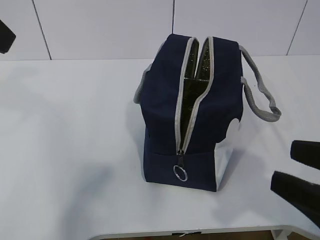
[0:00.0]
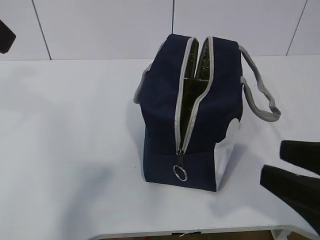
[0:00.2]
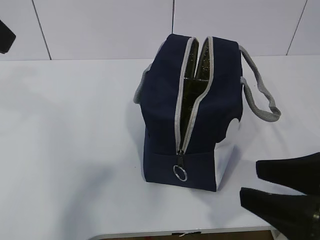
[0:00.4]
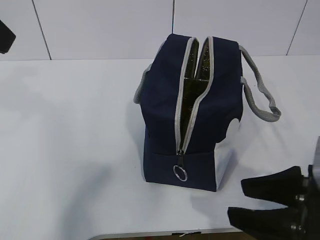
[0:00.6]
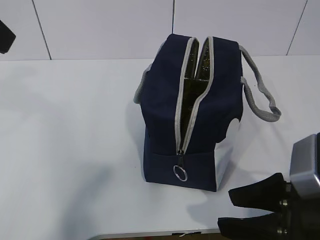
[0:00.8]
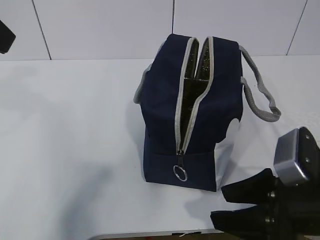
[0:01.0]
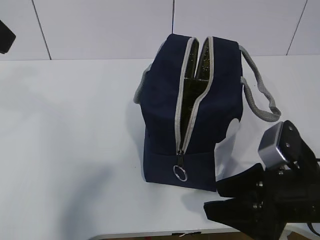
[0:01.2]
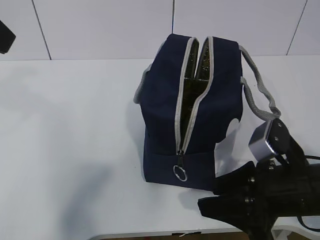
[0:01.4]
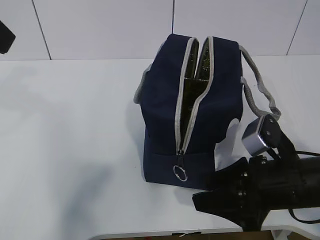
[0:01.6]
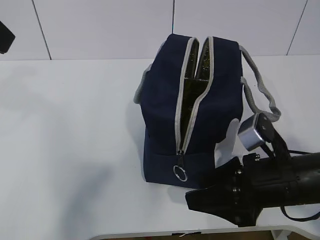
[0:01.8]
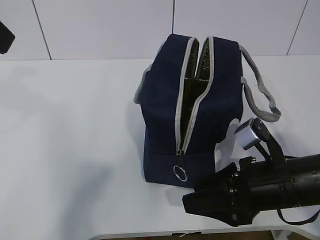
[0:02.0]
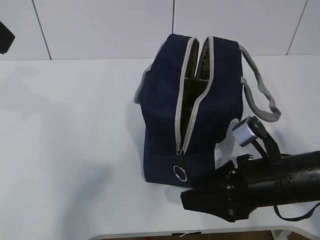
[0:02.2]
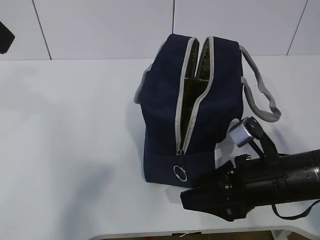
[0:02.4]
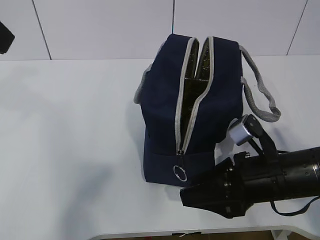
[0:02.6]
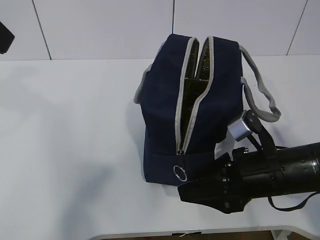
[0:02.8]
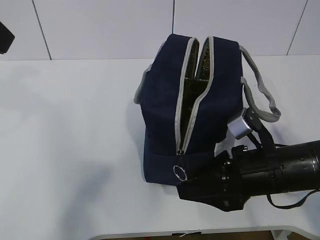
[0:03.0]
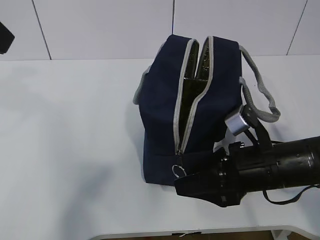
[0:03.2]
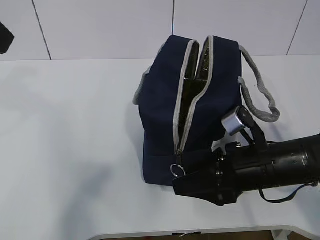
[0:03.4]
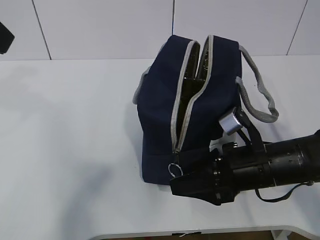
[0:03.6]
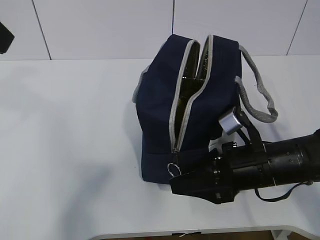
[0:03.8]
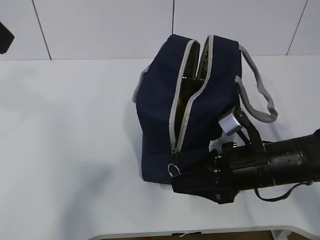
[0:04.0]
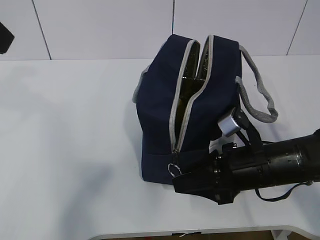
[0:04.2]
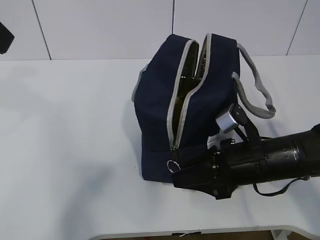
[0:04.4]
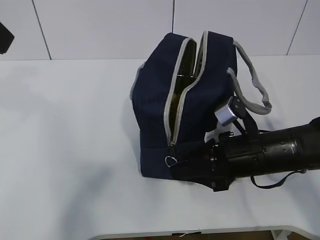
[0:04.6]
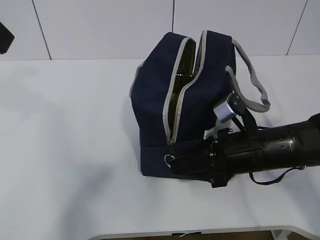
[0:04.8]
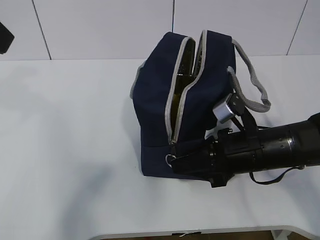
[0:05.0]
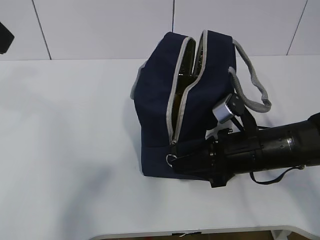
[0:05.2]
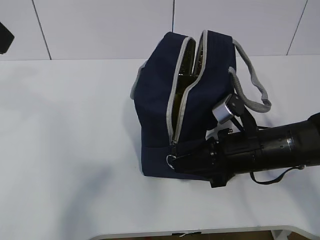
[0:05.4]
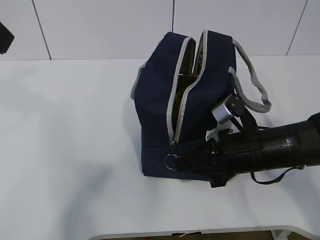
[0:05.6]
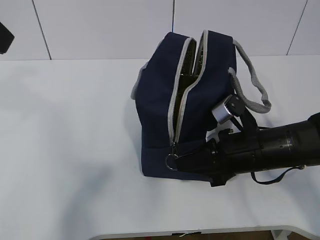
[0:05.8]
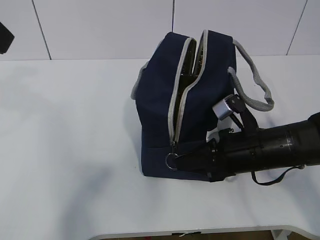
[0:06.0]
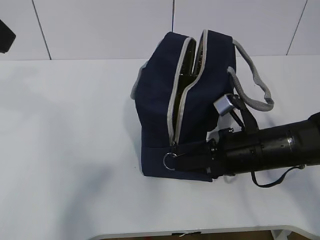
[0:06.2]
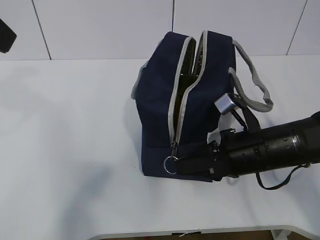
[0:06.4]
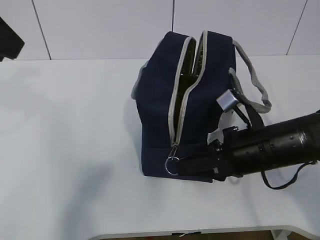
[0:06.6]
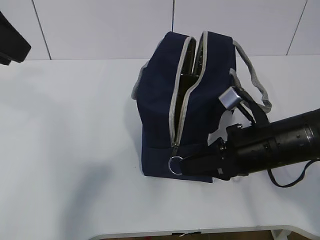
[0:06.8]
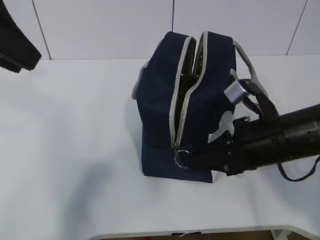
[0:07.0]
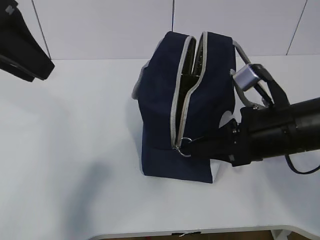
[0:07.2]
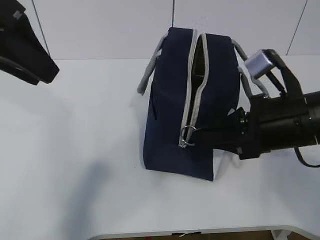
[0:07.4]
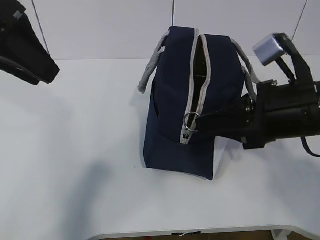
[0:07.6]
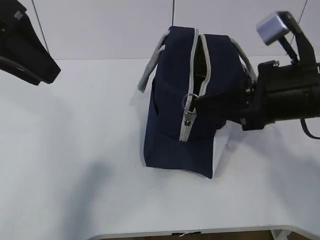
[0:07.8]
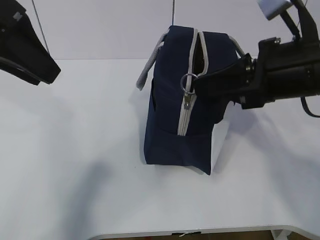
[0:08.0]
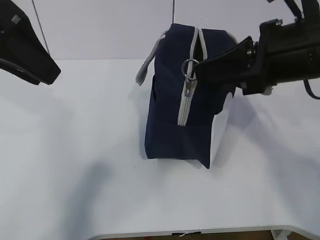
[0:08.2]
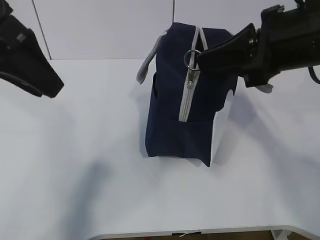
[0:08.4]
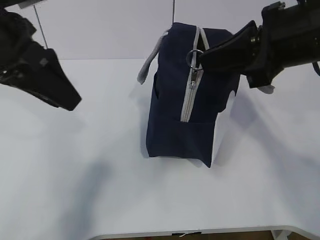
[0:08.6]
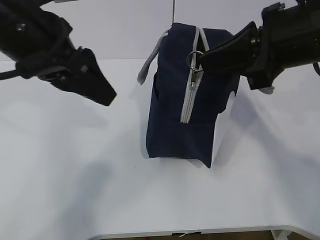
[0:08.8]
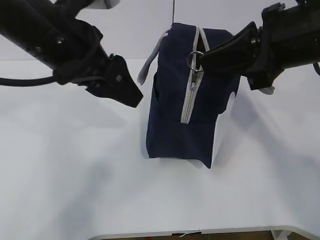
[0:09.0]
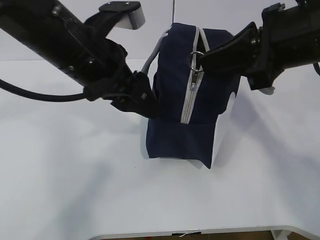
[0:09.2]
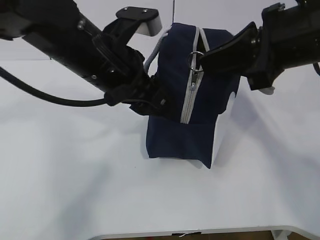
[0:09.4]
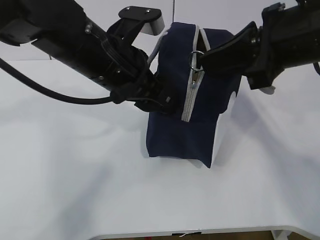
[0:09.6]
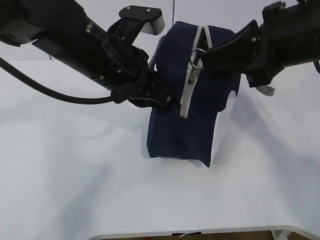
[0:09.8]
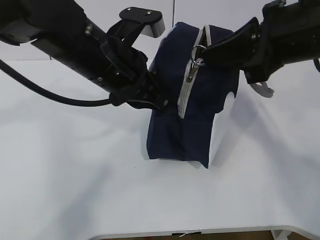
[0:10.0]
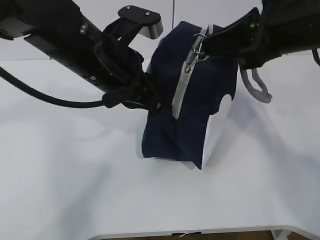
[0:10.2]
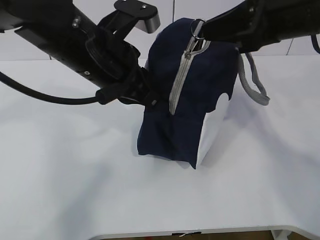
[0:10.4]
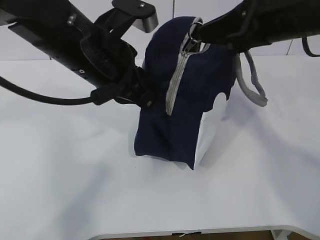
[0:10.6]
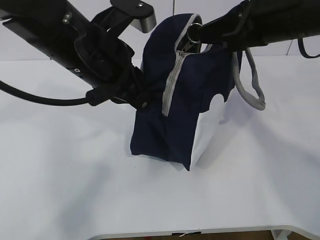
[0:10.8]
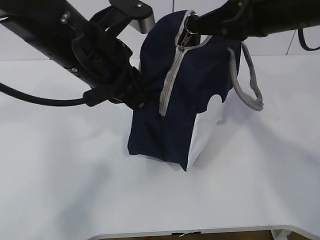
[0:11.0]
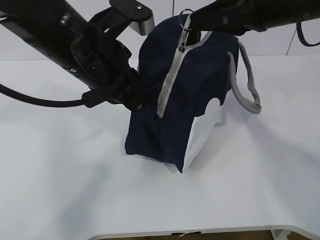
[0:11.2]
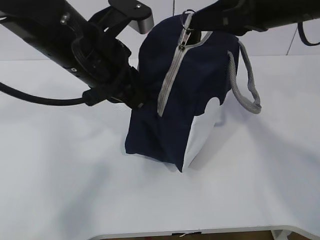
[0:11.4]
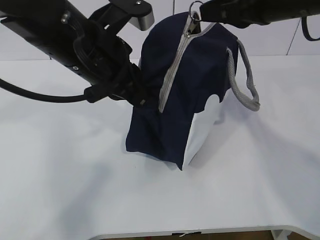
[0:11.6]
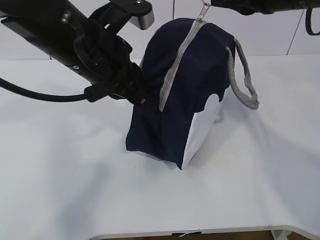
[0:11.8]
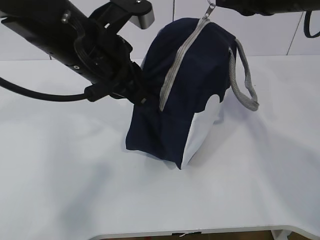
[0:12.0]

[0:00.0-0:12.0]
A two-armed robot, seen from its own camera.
0:00.0 to 0:01.6: The right gripper moves forward and downward, about 15 cm.
0:01.6 to 0:04.4: The grippers move only a little.
0:04.4 to 0:06.0: The right gripper closes up.
0:06.0 to 0:07.6: The right gripper is displaced upward by some 10 cm; the left gripper changes place by about 5 cm.
0:07.6 to 0:09.0: The right gripper heads upward, covering roughly 10 cm. Meanwhile the left gripper is displaced to the right and downward by some 10 cm.
0:09.0 to 0:10.4: The left gripper moves about 5 cm, and closes up.
0:10.4 to 0:12.0: The right gripper is displaced forward by some 5 cm.

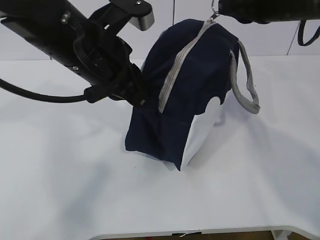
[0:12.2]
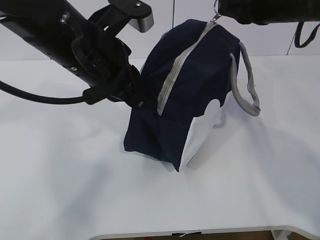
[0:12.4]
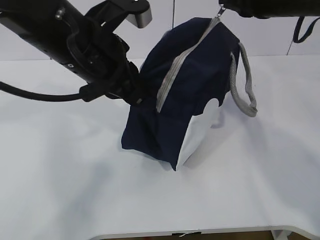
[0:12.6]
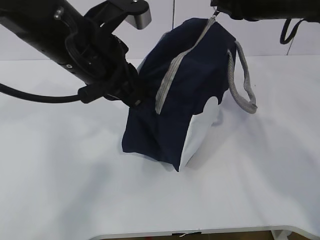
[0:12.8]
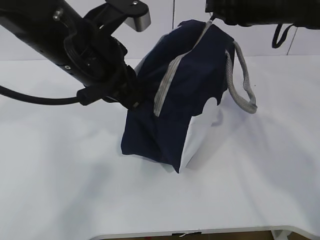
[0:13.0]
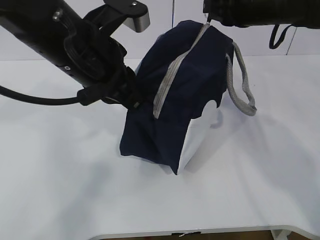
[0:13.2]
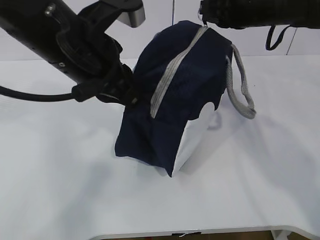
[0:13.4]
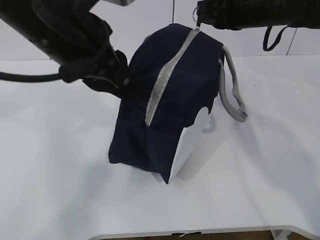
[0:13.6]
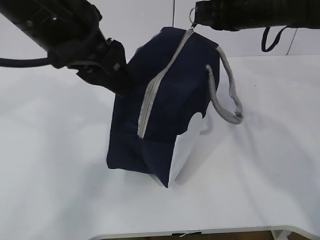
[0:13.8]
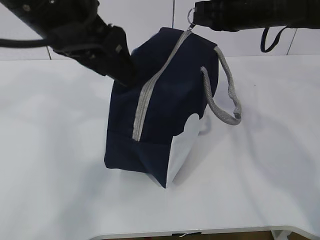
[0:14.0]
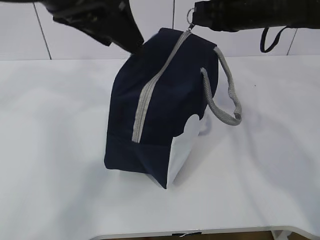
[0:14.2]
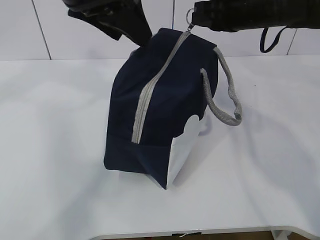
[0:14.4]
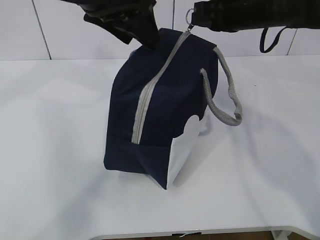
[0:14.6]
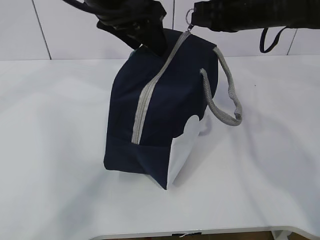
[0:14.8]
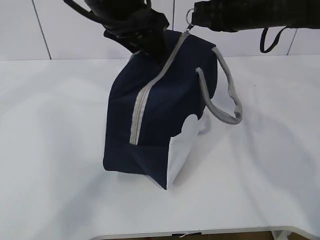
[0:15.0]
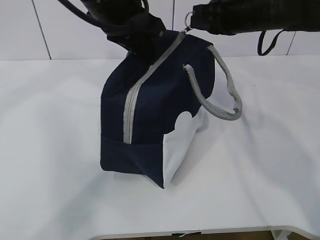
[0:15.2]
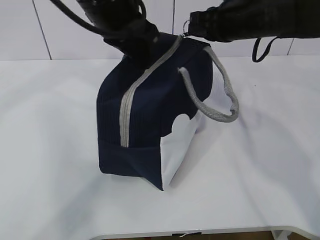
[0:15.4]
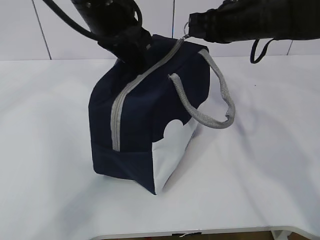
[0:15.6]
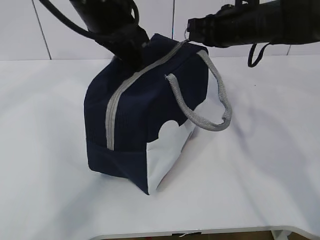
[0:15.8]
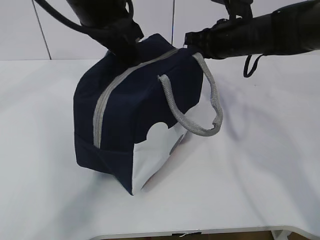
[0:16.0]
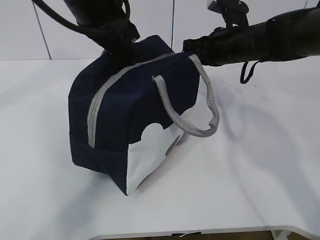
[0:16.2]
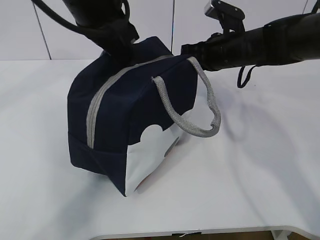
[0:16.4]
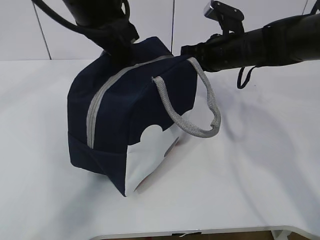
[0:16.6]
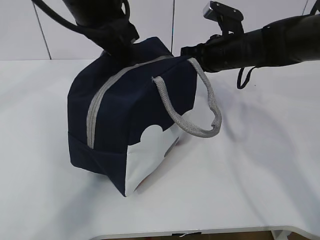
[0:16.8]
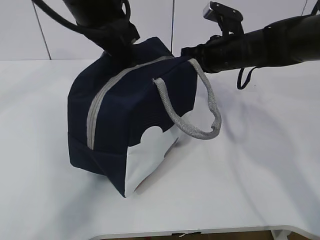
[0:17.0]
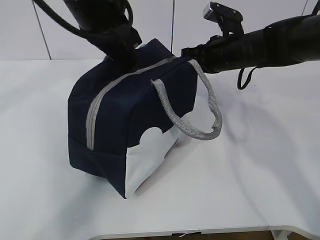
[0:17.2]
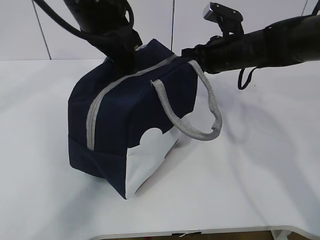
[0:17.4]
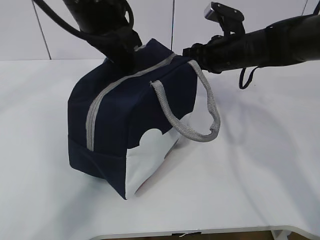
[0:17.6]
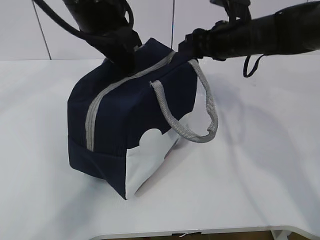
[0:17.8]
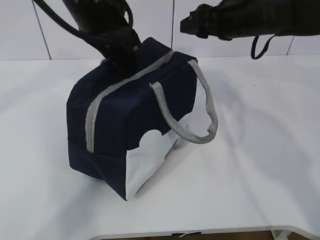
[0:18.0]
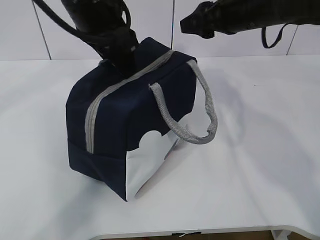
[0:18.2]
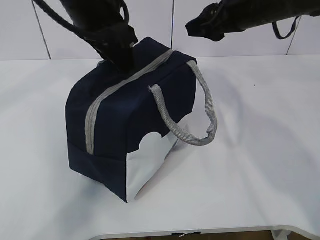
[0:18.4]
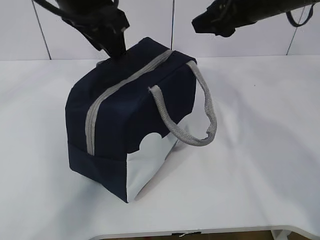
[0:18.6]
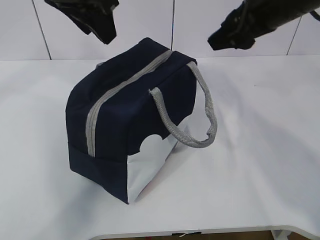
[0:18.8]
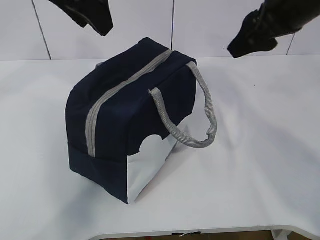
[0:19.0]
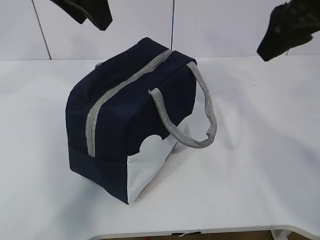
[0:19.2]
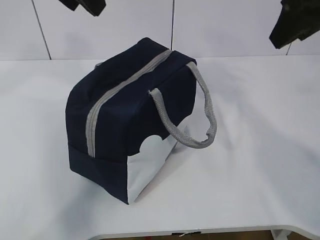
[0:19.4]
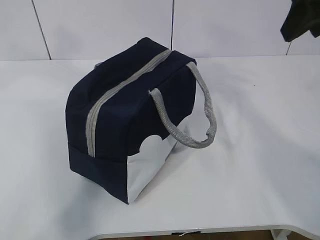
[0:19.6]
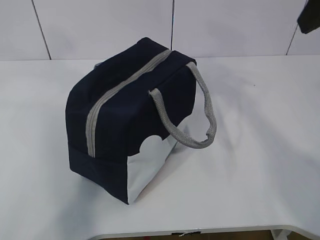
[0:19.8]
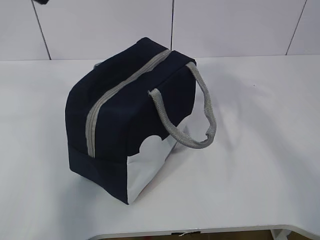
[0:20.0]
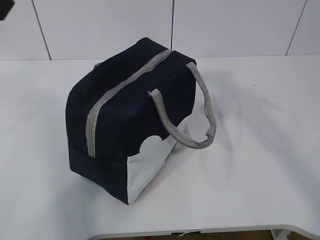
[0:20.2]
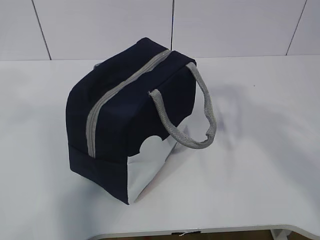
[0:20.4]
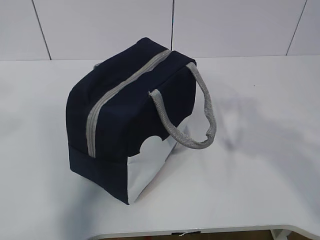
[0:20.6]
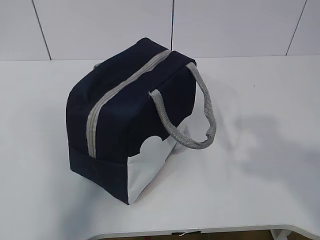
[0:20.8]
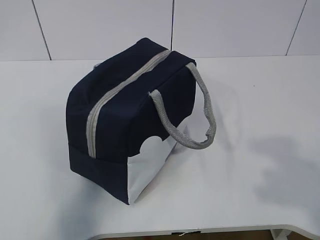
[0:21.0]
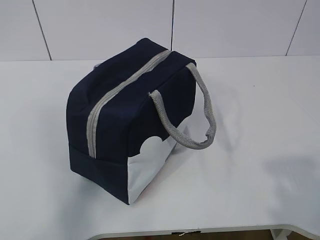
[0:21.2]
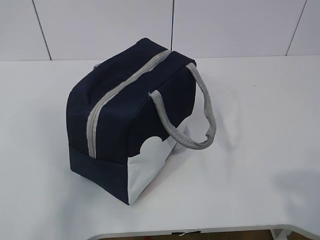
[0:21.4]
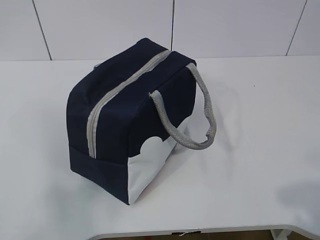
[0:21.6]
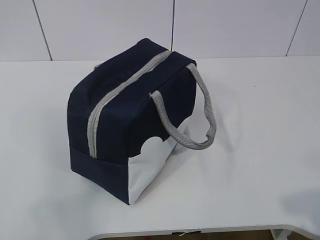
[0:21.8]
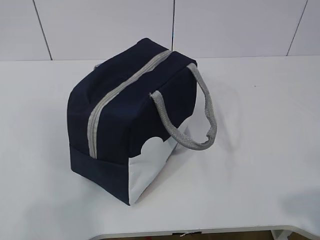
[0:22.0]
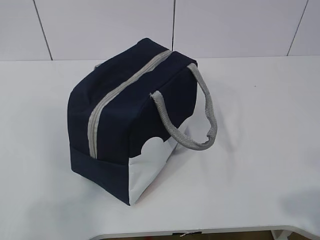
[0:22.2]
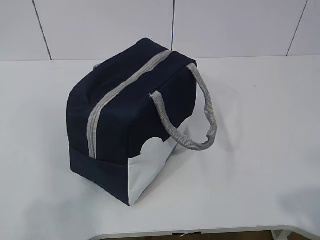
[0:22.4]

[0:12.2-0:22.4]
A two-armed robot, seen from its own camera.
Step, 0:12.2 to 0:18.2: zip up the zipper to close the bag.
0:12.2 to 0:13.6: The right gripper shifts approximately 5 cm forward.
0:13.6 to 0:15.2: The left gripper is displaced forward by some 10 cm, and opens and closes again.
0:15.2 to 0:16.6: The right gripper moves downward, roughly 10 cm.
0:16.6 to 0:18.0: The right gripper goes approximately 5 cm upward, and opens up; the left gripper opens up.
0:18.0 to 0:19.4: The left gripper travels upward by approximately 10 cm; the right gripper heads backward, upward and to the right, covering approximately 20 cm.
0:19.4 to 0:21.0: The left gripper shifts about 30 cm backward and to the left. The right gripper goes some 30 cm backward.
0:21.0 to 0:22.4: Both grippers travel together downward, some 10 cm.
